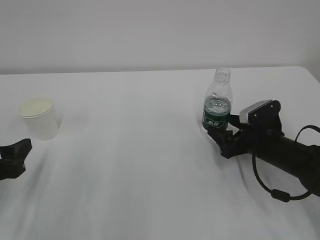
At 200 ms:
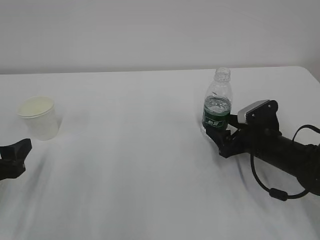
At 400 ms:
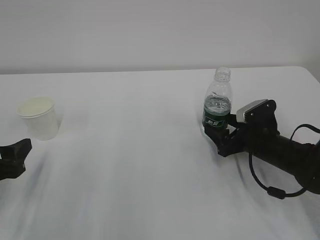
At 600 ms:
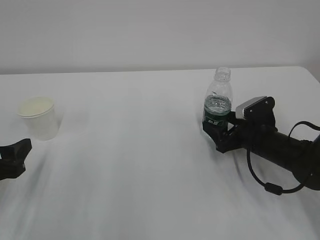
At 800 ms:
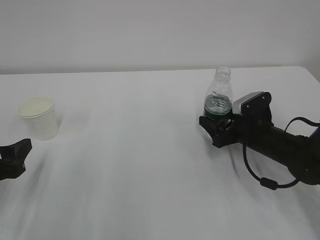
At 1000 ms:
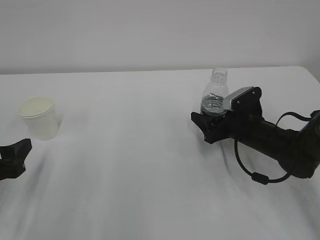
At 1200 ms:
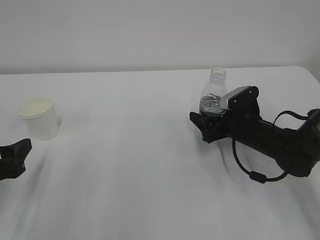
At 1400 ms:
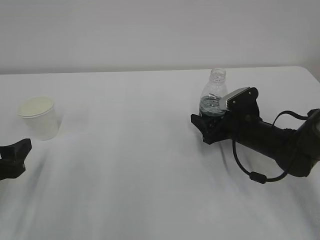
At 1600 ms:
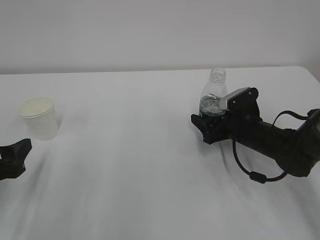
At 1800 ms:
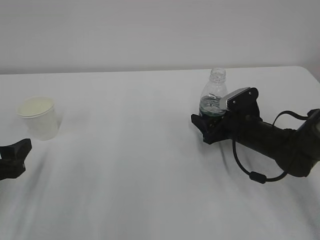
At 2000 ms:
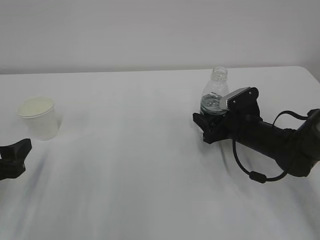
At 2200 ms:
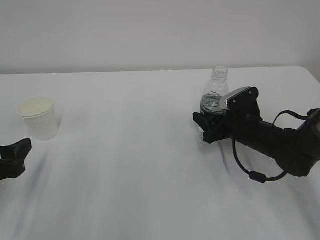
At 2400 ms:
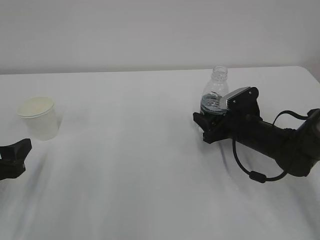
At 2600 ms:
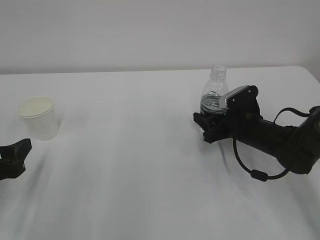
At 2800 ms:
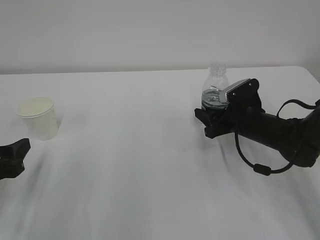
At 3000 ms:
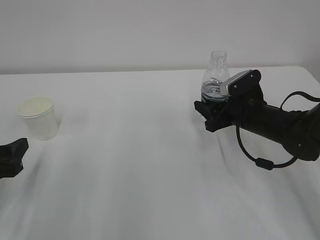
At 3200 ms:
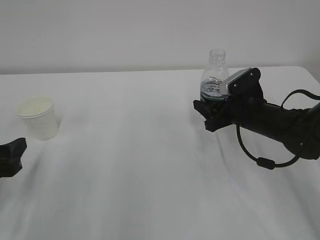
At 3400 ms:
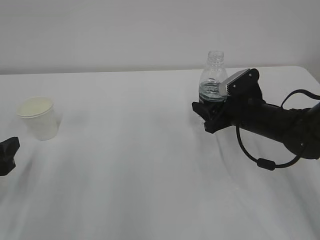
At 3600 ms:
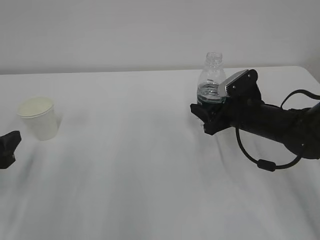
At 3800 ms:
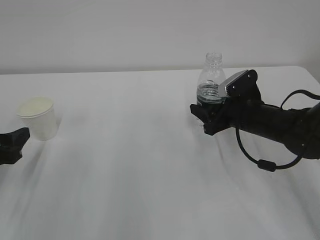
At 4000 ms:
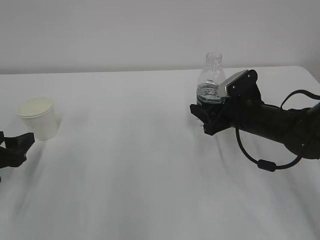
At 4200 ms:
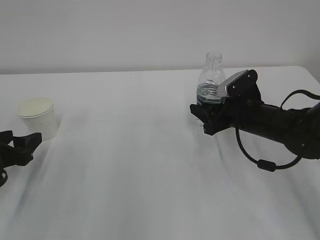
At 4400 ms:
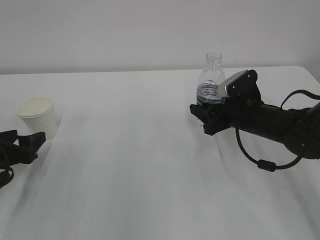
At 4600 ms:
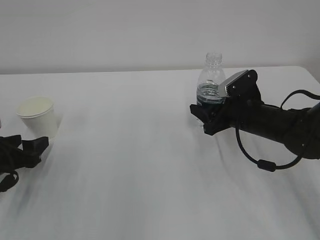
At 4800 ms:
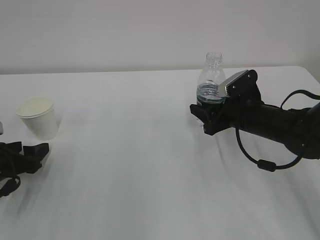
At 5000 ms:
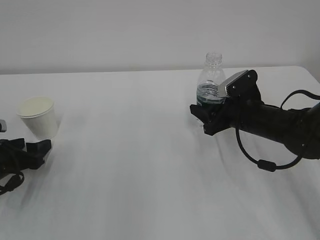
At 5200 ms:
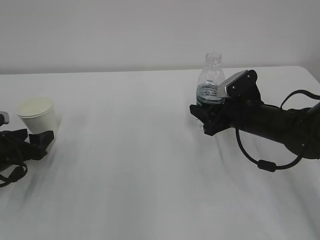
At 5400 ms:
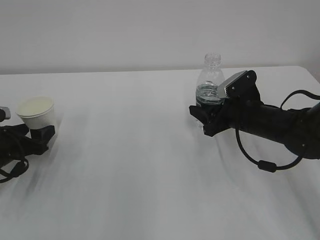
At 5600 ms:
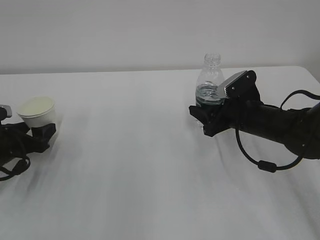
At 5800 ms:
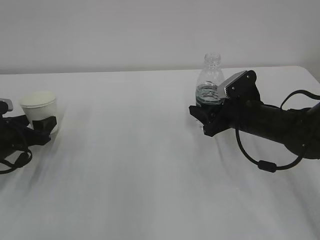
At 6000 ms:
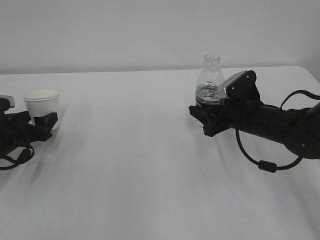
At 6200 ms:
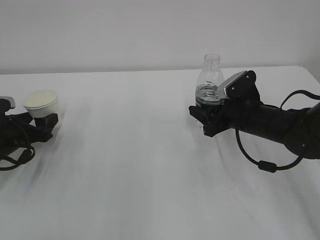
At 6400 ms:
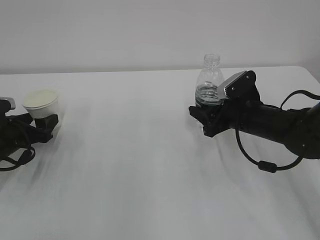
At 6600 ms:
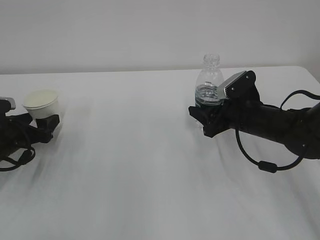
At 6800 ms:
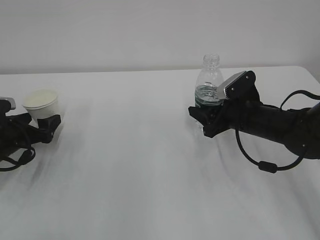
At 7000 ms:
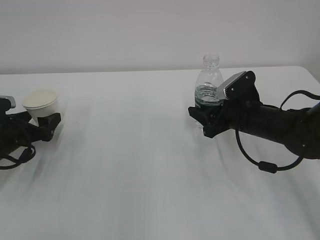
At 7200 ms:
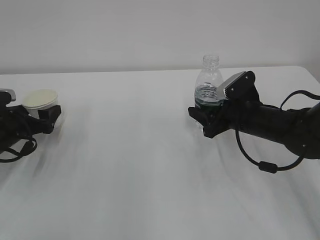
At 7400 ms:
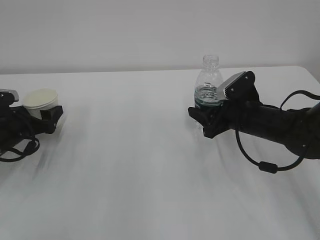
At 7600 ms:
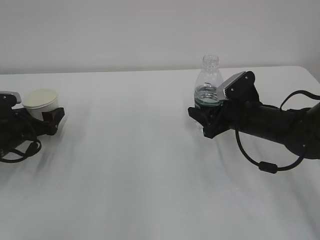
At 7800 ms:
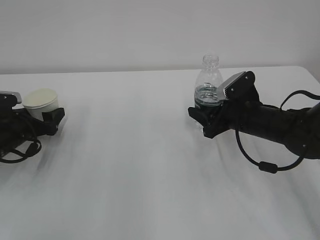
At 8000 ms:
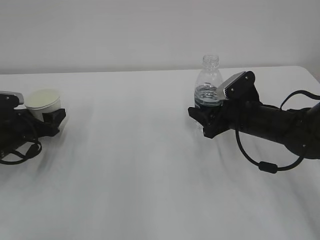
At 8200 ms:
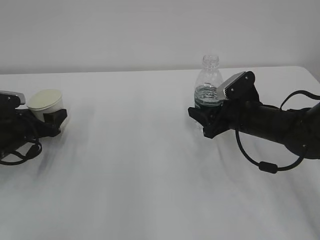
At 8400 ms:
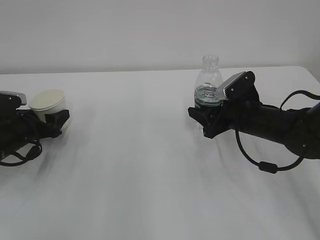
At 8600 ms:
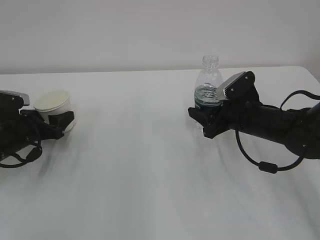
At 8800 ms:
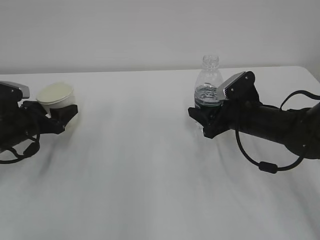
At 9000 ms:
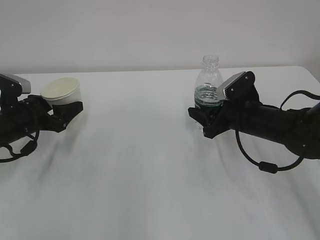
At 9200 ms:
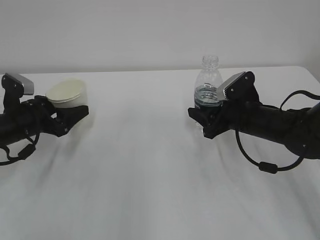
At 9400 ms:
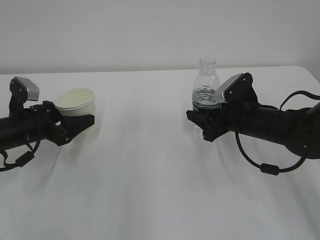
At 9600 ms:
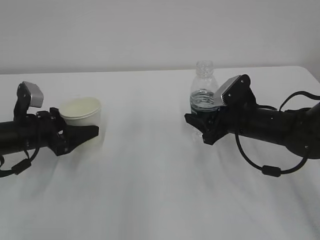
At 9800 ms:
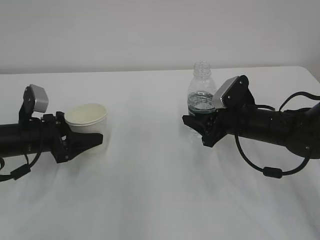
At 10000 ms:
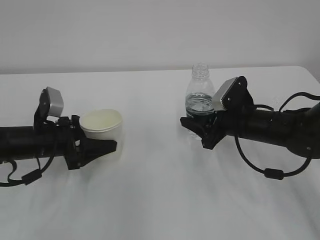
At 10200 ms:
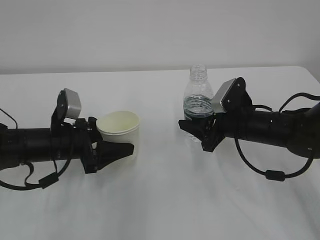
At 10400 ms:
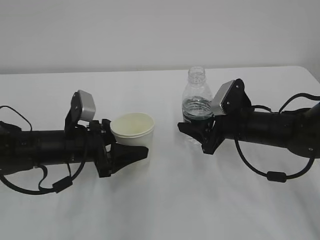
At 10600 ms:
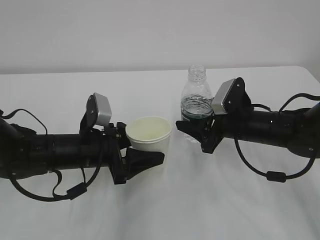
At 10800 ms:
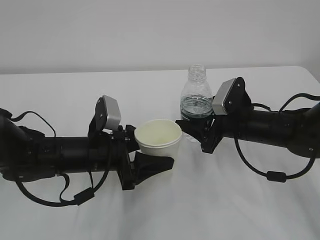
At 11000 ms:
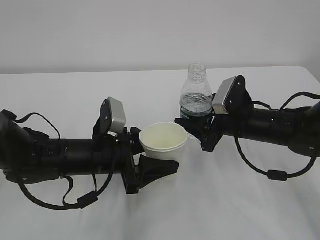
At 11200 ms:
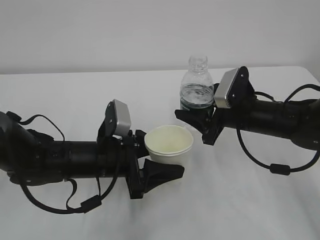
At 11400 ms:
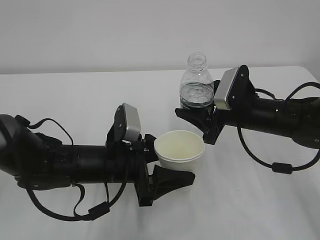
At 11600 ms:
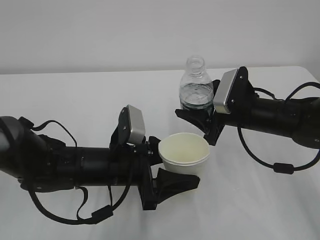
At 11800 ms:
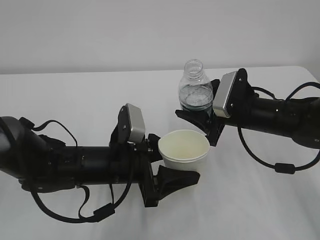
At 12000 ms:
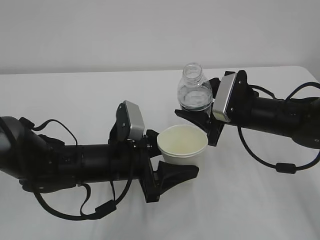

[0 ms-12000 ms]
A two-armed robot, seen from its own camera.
0 ms to 1600 ms: There are only small adjustments of the grippers.
1600 ms to 3000 ms: The right gripper closes.
3000 ms to 4400 ms: The left gripper is displaced forward by some 5 cm.
4400 ms to 6000 ms: The left gripper is displaced forward by roughly 5 cm.
6000 ms to 7600 ms: The left gripper opens.
7600 ms to 9000 ms: The left gripper closes its fingers.
9000 ms to 10400 ms: The left gripper goes roughly 15 cm to the right and backward.
10400 ms to 12000 ms: The left gripper heads to the right, covering some 10 cm.

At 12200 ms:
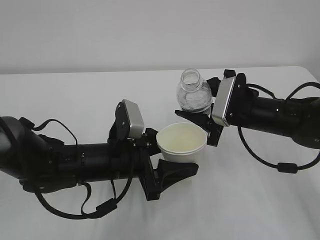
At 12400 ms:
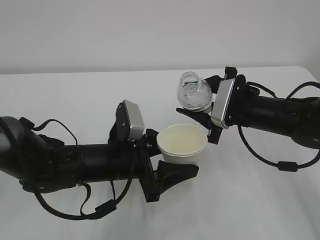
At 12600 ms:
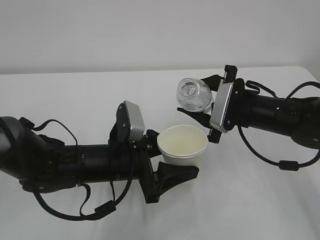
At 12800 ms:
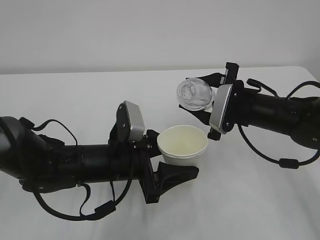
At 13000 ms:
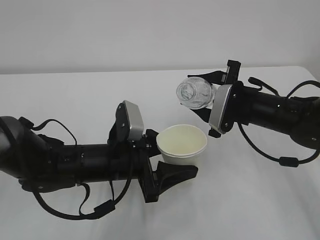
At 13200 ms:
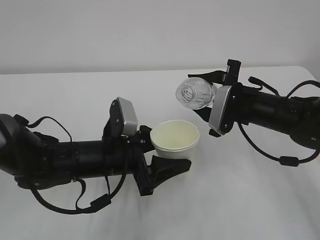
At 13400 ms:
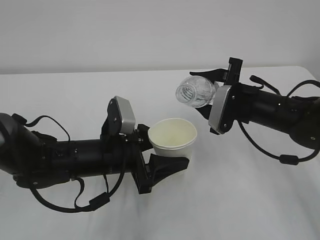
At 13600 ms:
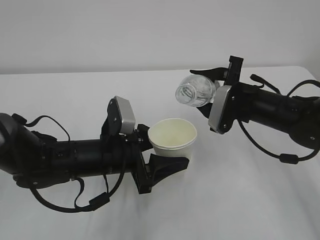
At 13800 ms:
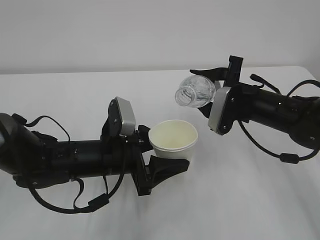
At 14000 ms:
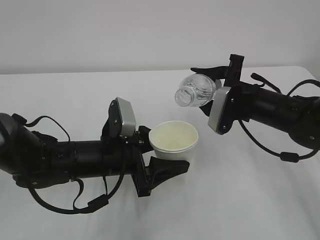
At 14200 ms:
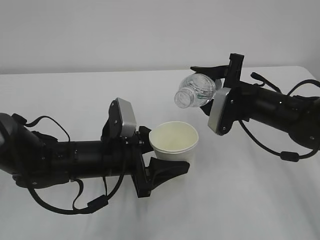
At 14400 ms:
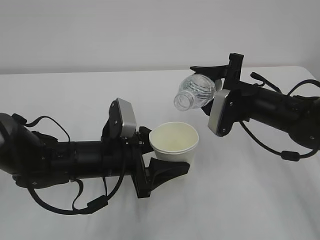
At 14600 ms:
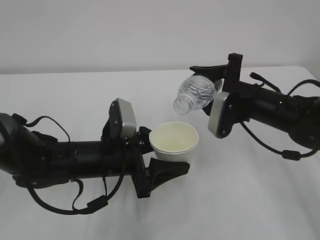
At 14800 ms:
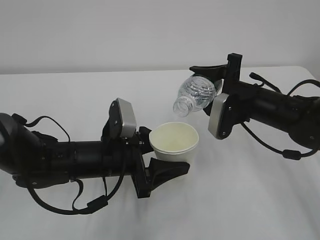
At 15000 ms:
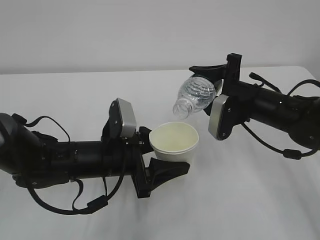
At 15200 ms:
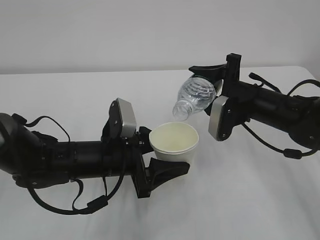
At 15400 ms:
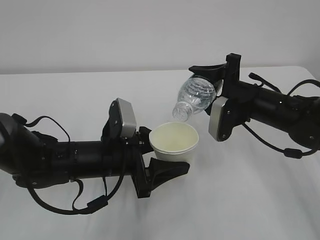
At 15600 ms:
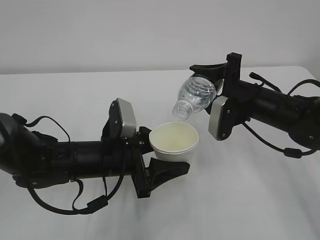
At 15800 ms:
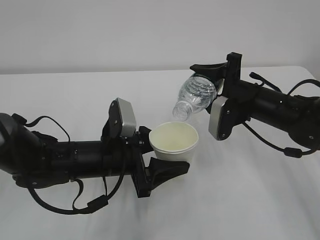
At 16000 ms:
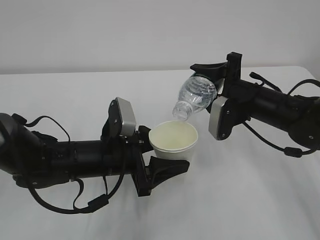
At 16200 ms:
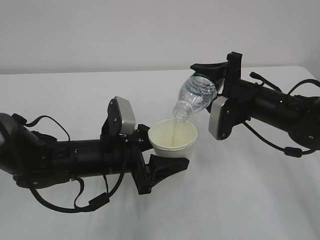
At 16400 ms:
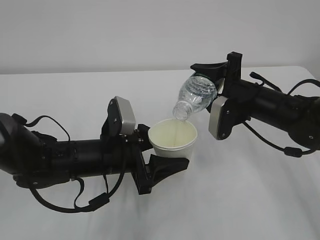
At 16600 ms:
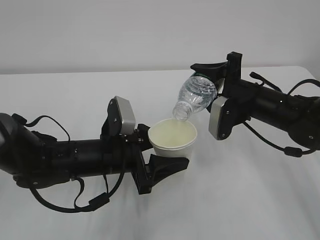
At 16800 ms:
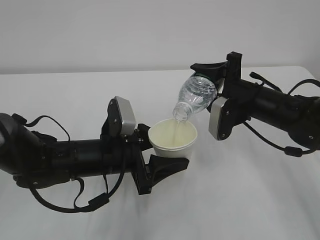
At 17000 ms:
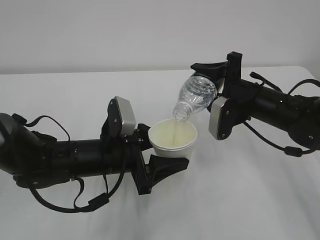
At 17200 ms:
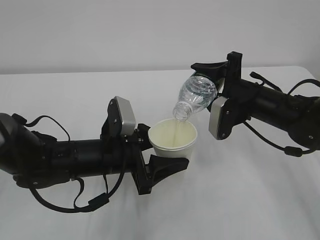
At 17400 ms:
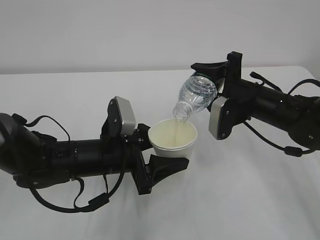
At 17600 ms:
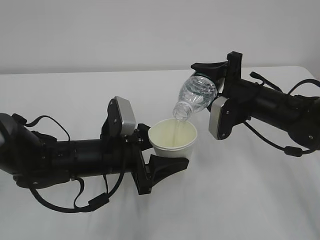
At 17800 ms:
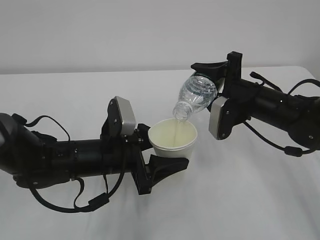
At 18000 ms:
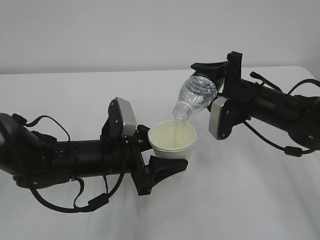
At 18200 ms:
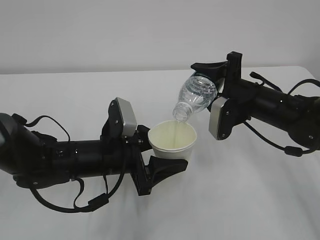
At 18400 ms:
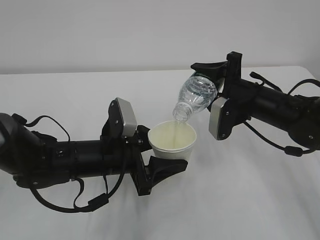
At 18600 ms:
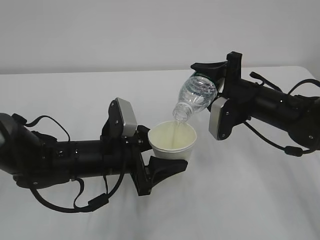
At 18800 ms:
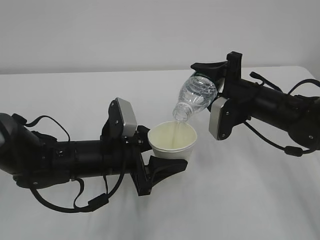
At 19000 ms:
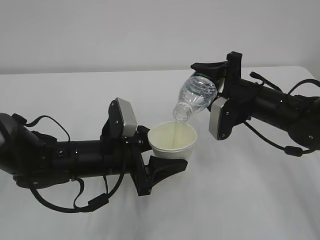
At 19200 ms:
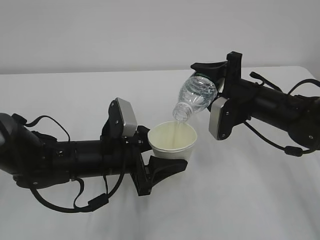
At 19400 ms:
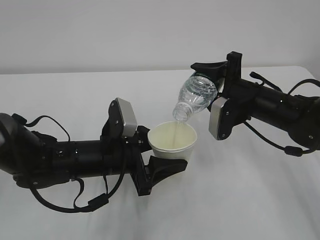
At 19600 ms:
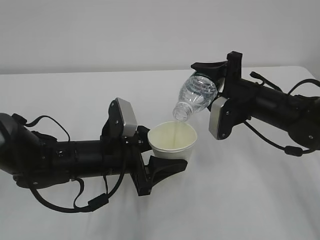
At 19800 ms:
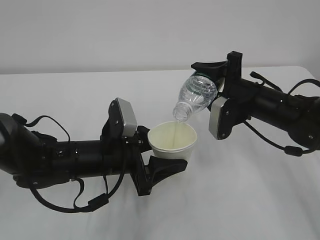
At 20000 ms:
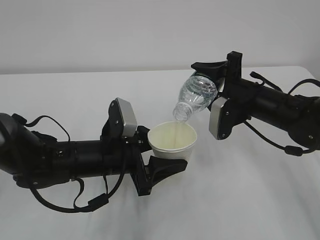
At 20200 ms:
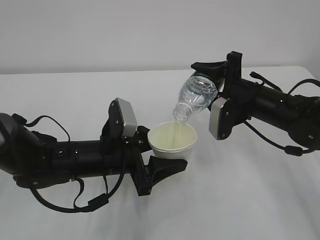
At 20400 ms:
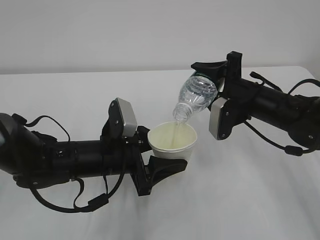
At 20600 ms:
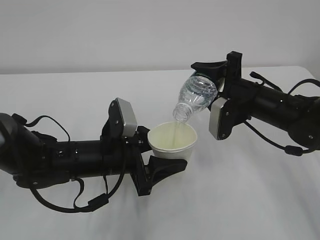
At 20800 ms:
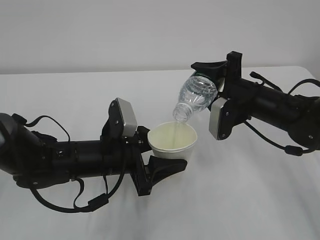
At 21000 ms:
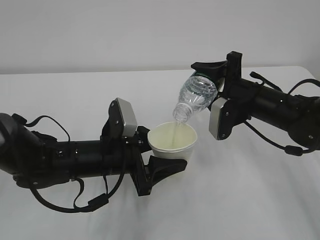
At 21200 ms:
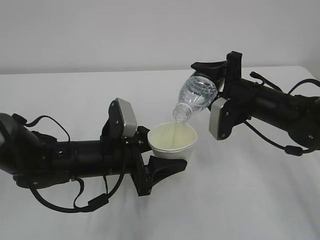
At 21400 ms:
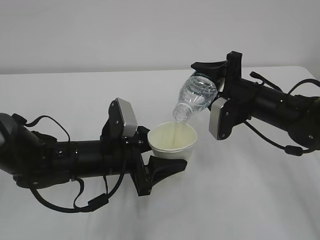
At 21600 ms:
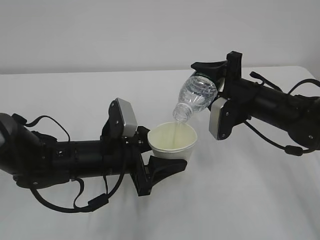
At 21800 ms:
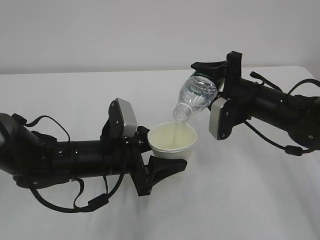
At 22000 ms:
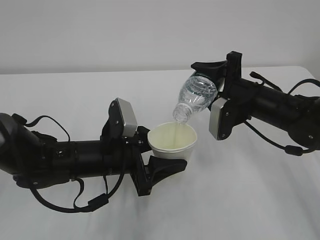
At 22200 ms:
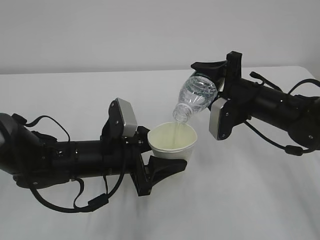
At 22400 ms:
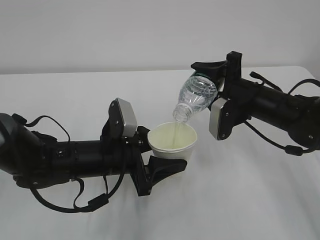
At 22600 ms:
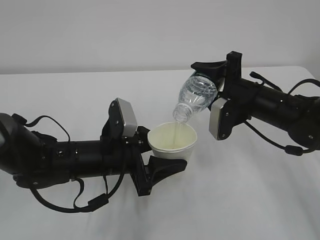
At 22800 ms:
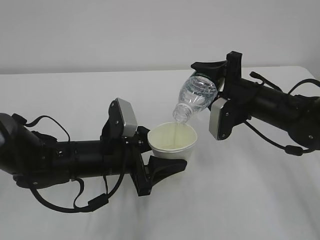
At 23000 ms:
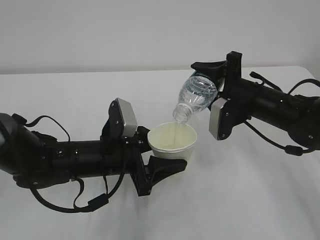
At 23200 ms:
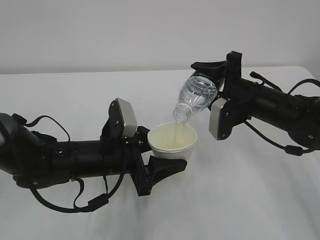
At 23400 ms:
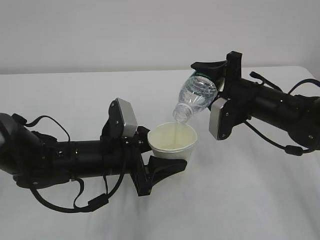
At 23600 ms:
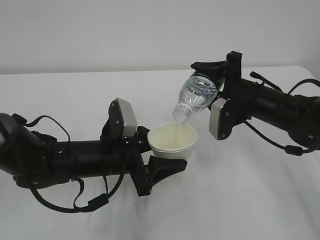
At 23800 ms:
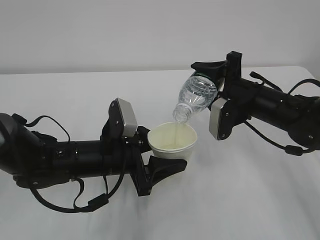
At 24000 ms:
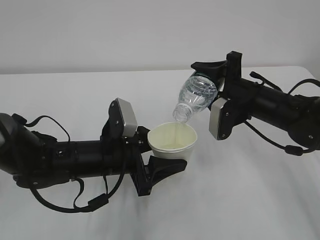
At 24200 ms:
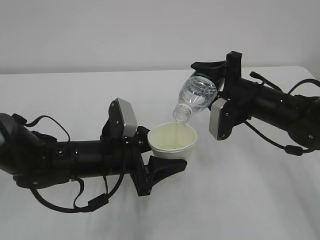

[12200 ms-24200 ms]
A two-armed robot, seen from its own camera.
13800 ms to 15200 ms: The grippers stay close to where they were, moving slightly.
15200 ms to 16600 ms: Neither gripper changes place.
16600 ms to 24200 ms: The two grippers keep their place.
